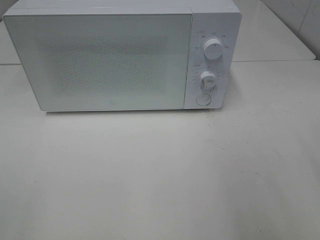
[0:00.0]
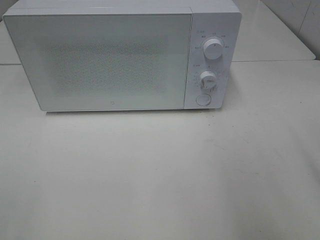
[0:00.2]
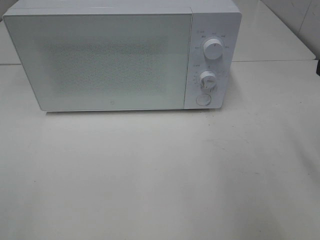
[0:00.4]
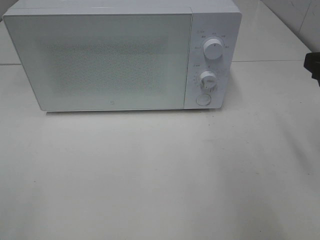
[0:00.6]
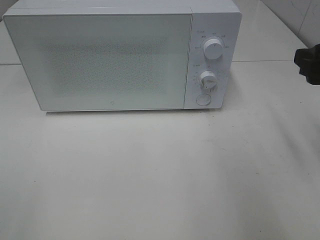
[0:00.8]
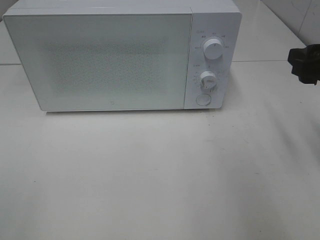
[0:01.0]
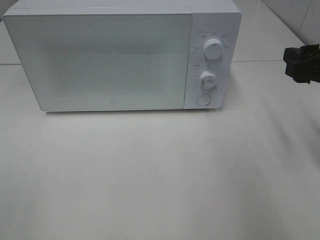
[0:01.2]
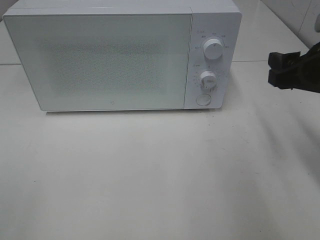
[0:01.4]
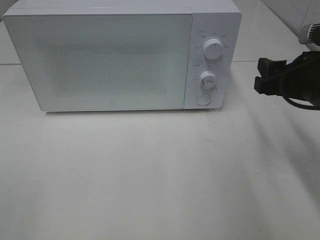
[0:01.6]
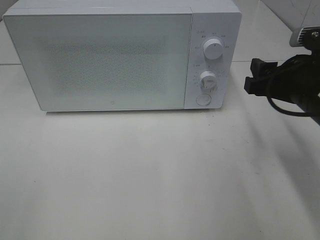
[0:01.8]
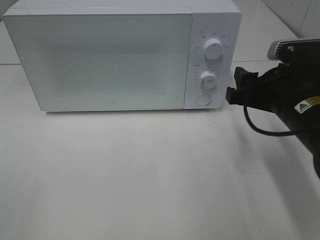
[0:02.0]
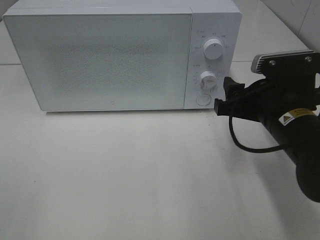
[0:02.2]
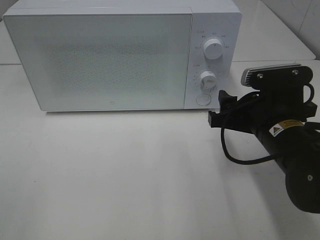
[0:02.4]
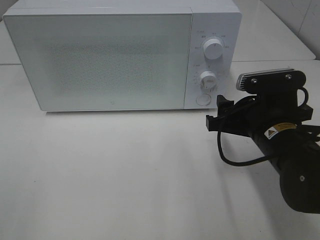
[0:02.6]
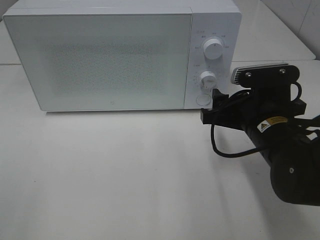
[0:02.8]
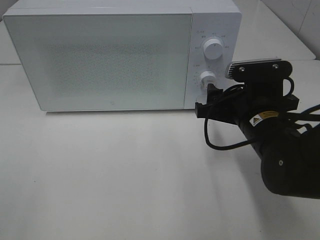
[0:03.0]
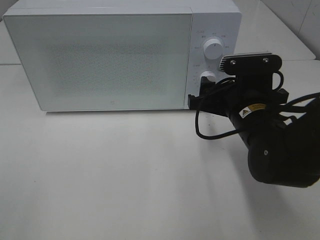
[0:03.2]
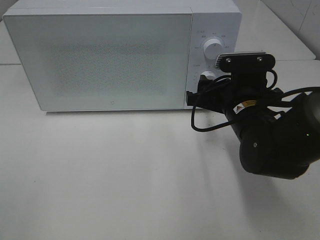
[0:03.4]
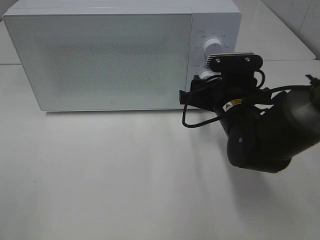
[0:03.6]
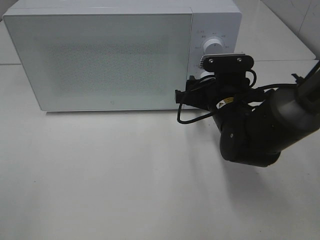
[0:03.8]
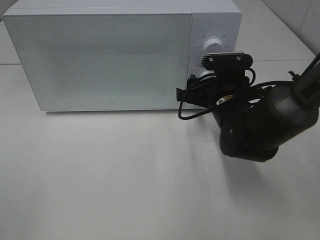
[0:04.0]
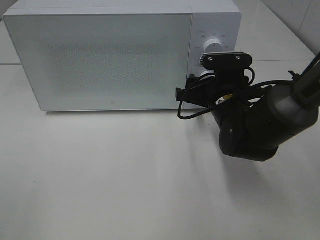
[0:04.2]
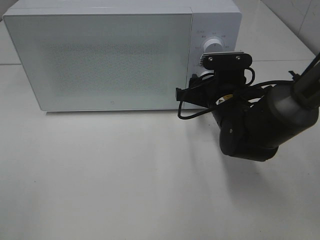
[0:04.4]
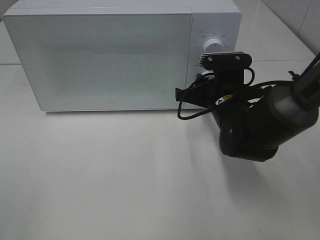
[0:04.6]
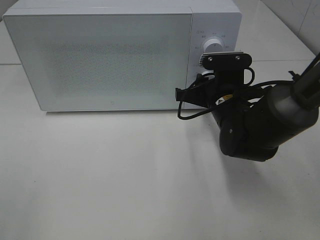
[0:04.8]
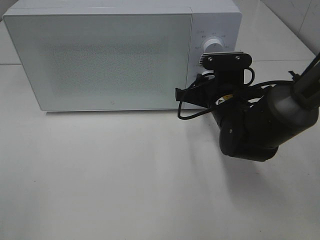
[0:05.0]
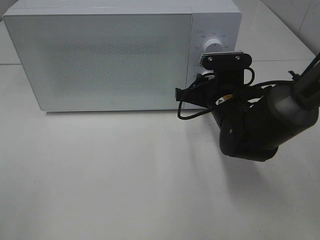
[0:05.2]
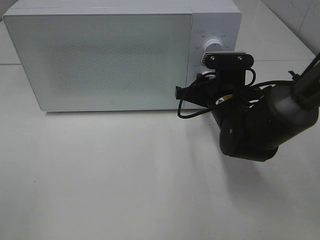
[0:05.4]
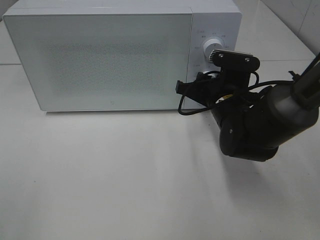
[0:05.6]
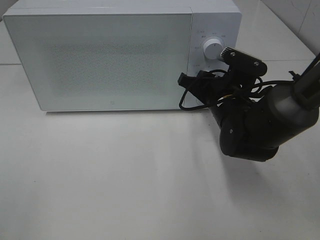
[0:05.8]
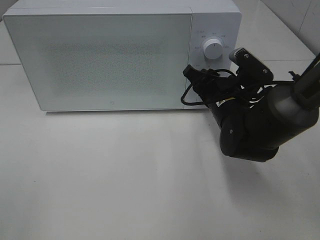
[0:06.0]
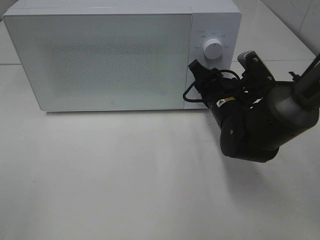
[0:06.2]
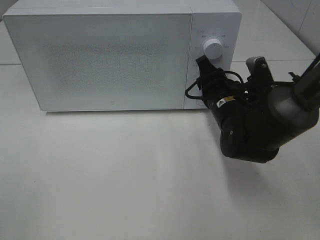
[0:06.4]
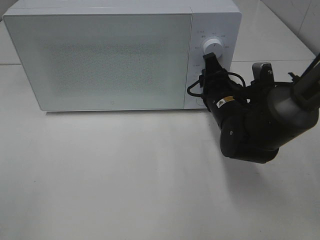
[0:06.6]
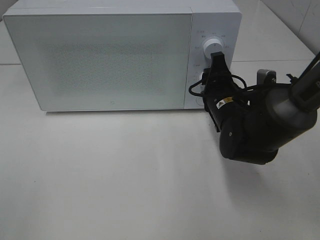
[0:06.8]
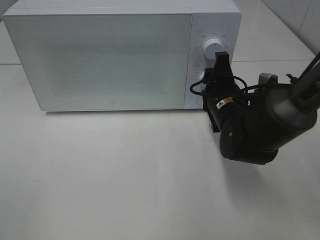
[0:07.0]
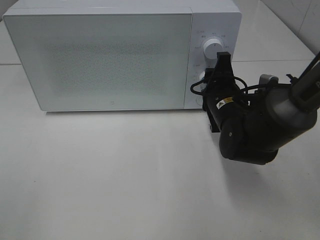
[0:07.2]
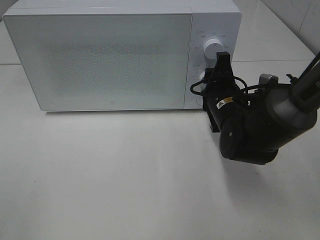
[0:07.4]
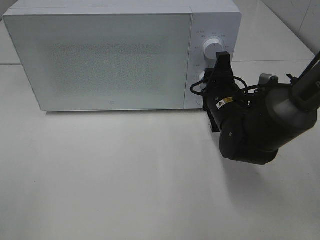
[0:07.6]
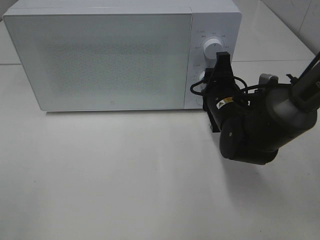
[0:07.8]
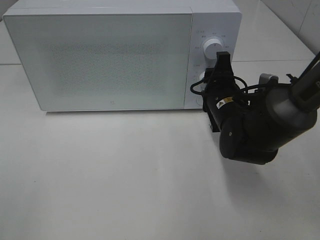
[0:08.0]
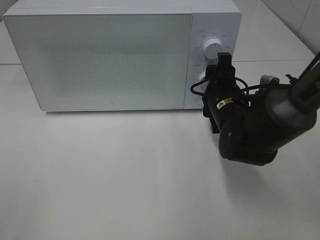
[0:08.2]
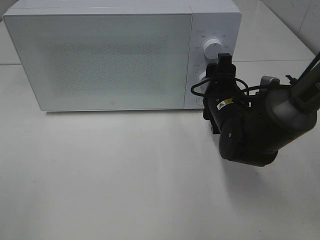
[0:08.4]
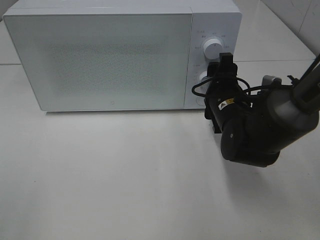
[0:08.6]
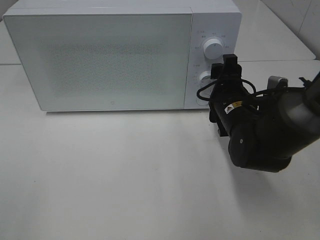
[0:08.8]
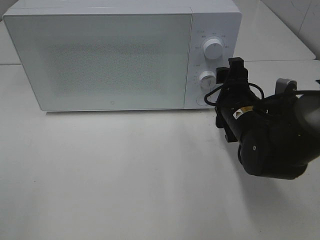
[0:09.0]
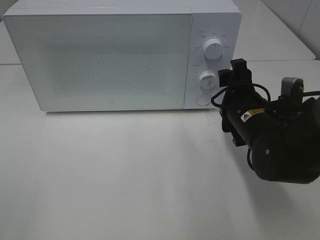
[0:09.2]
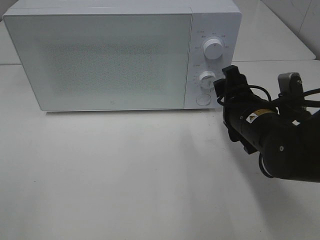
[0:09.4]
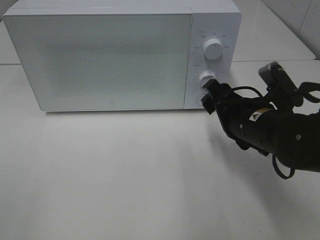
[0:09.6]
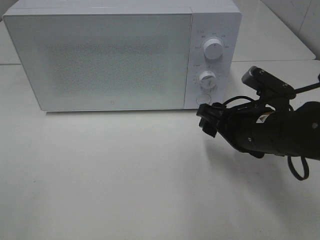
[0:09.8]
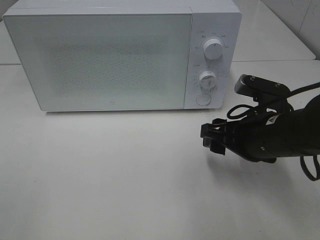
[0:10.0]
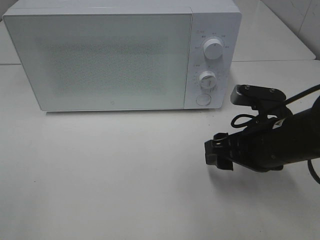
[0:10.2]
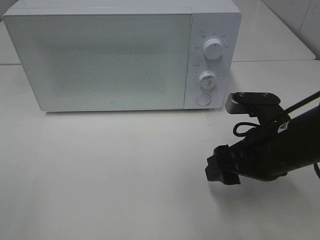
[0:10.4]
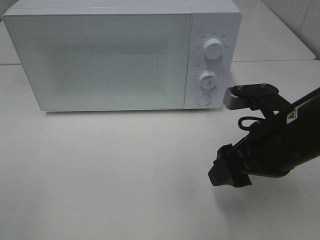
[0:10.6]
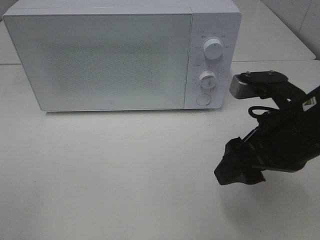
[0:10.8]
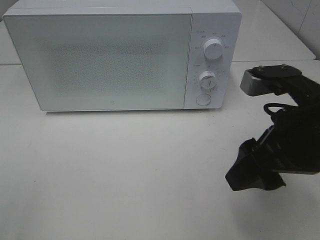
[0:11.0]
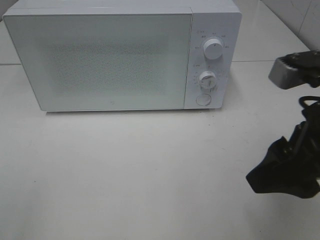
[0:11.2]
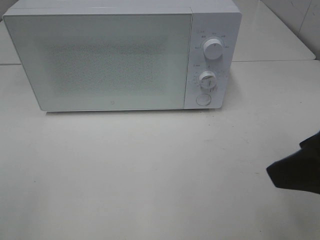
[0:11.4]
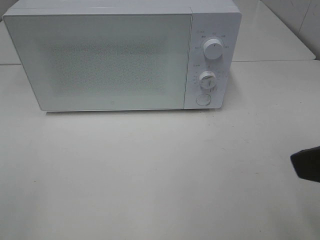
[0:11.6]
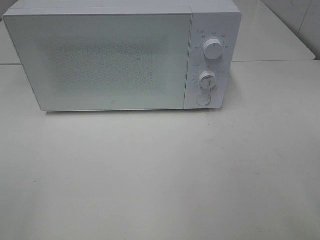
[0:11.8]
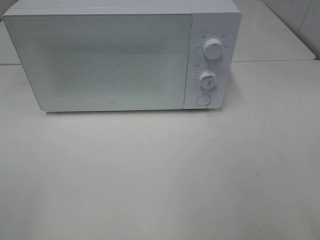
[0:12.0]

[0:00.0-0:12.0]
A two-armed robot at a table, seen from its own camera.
Task of the whole recording: Heat Sandwich.
Step, 0:00.0 to 0:08.4: Right hand: twist timer button.
0:00.0 to 0:01.6: The right gripper travels forward and downward by roughly 15 cm.
0:01.6 to 0:03.0: The right gripper moves to the left and downward, roughly 10 cm.
0:03.0 to 0:04.4: The right gripper shifts some 5 cm forward.
0:07.6 to 0:09.0: The right gripper opens.
0:09.0 to 0:10.4: The right gripper shifts approximately 10 cm backward.
0:10.4 to 0:12.0: The right gripper is displaced upward, backward and to the right by some 25 cm.

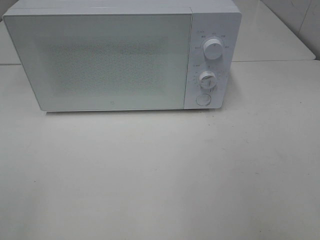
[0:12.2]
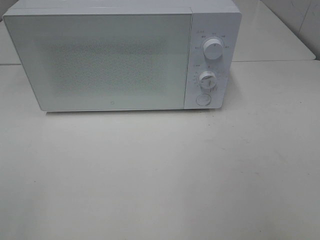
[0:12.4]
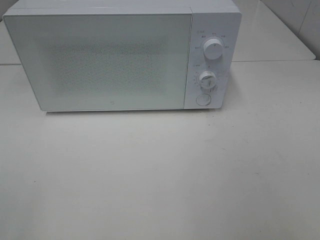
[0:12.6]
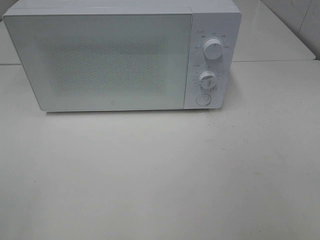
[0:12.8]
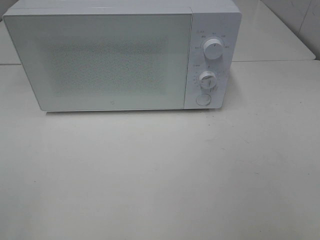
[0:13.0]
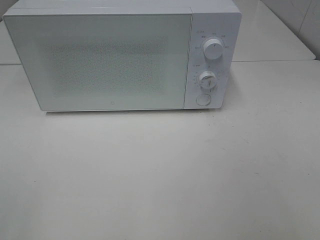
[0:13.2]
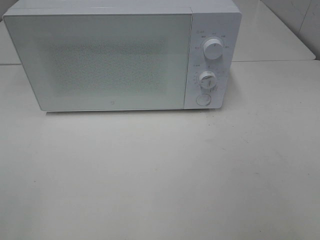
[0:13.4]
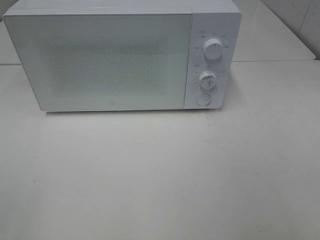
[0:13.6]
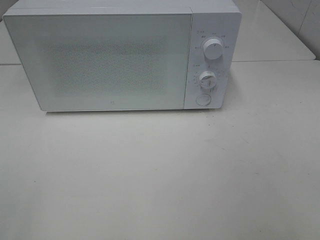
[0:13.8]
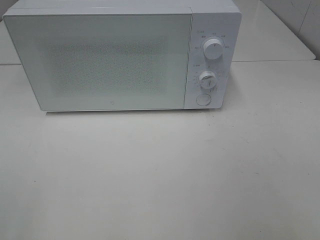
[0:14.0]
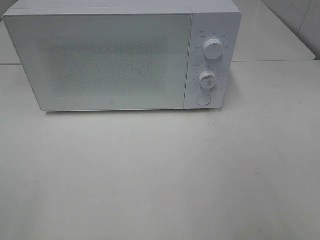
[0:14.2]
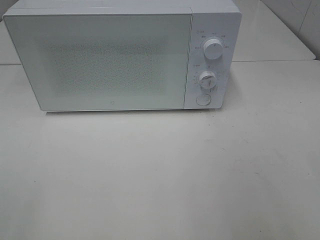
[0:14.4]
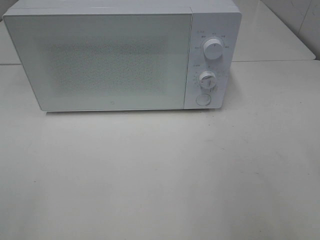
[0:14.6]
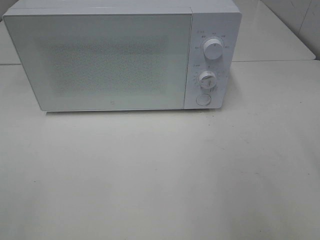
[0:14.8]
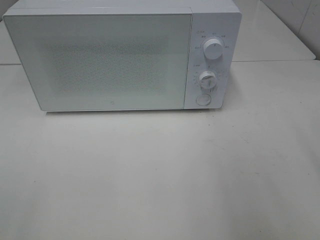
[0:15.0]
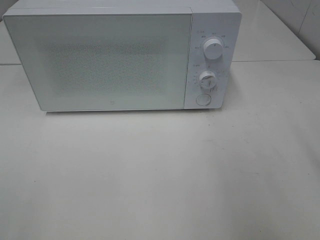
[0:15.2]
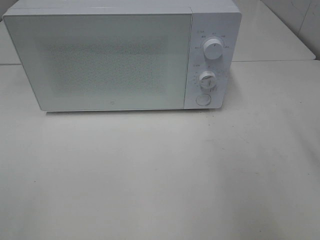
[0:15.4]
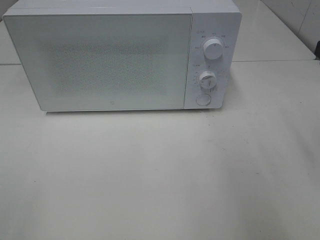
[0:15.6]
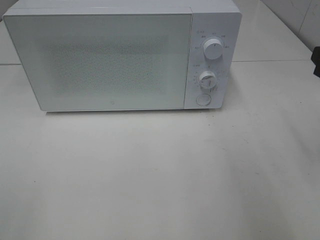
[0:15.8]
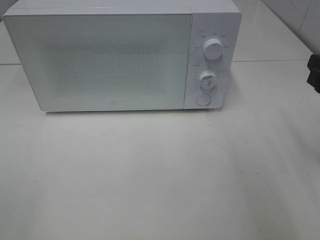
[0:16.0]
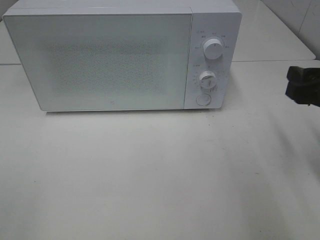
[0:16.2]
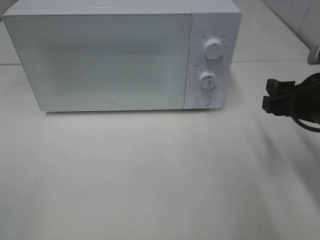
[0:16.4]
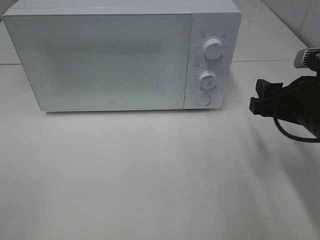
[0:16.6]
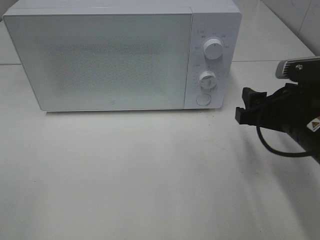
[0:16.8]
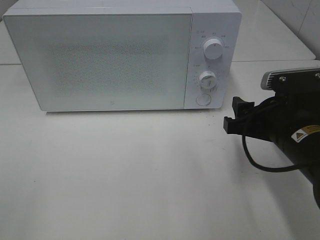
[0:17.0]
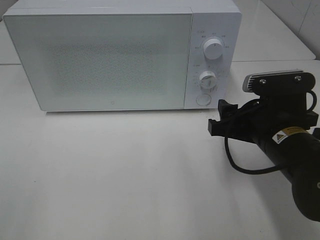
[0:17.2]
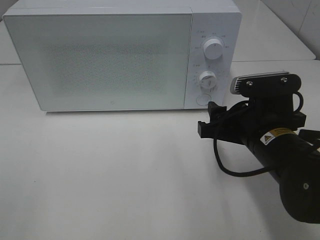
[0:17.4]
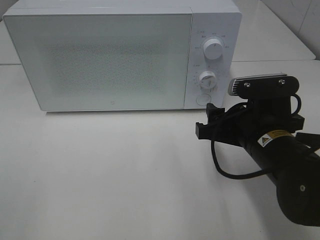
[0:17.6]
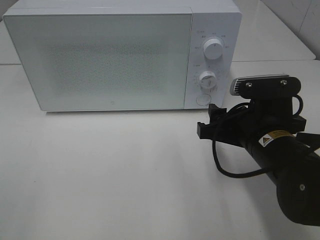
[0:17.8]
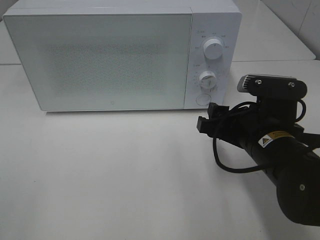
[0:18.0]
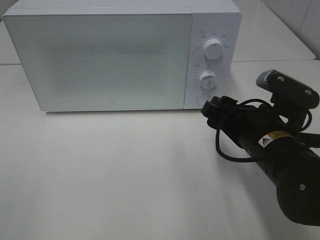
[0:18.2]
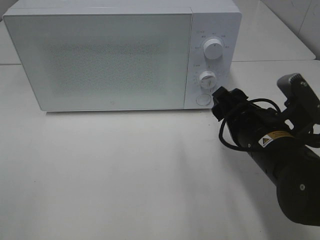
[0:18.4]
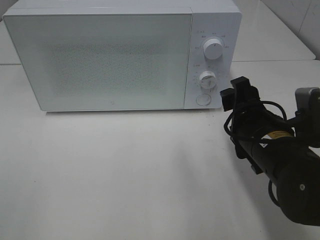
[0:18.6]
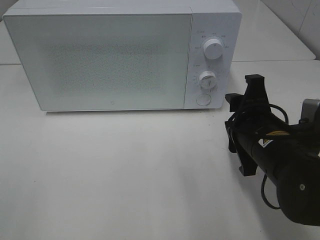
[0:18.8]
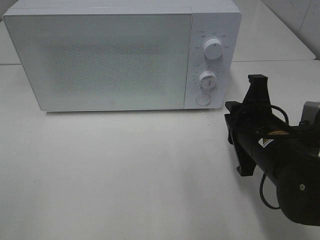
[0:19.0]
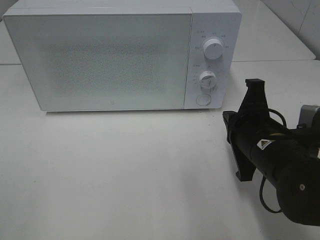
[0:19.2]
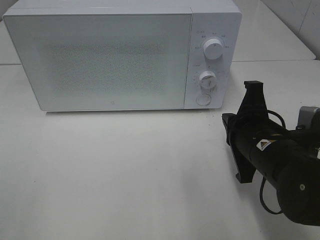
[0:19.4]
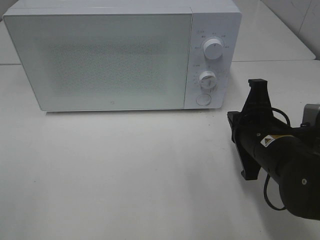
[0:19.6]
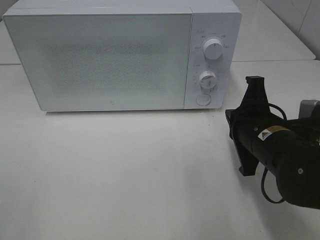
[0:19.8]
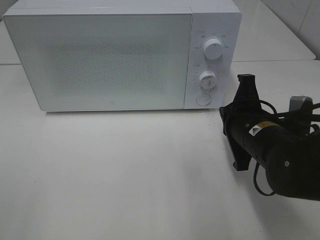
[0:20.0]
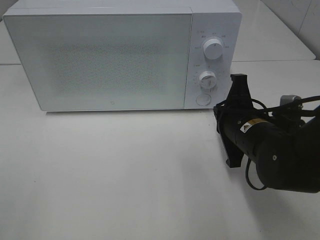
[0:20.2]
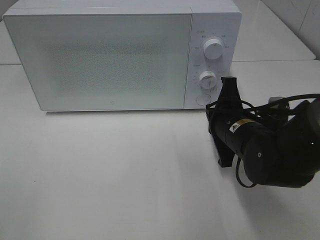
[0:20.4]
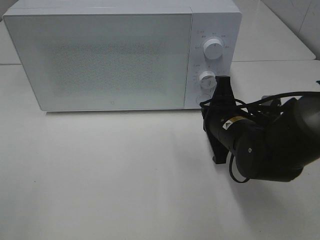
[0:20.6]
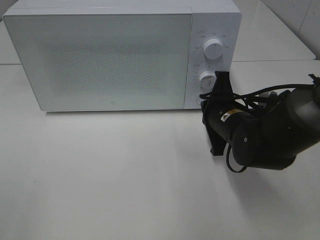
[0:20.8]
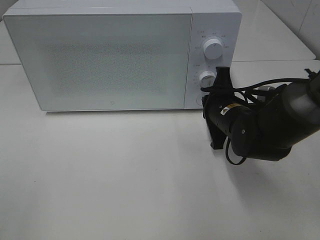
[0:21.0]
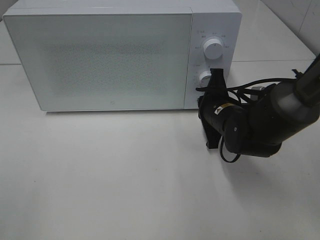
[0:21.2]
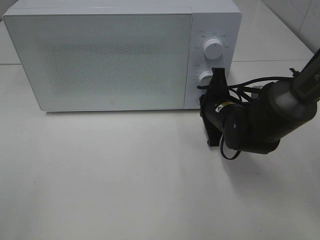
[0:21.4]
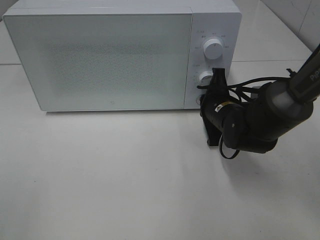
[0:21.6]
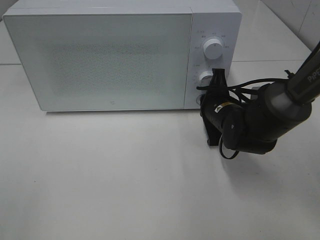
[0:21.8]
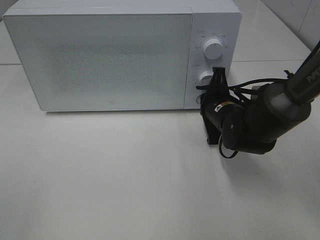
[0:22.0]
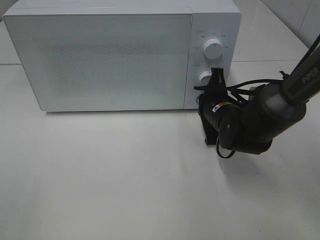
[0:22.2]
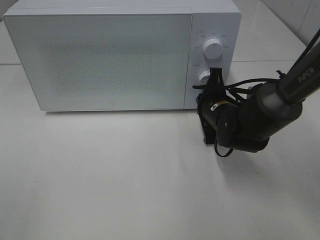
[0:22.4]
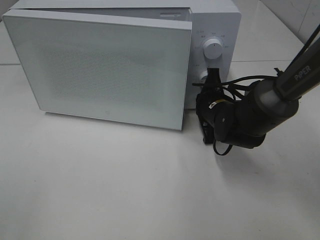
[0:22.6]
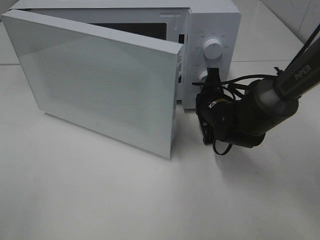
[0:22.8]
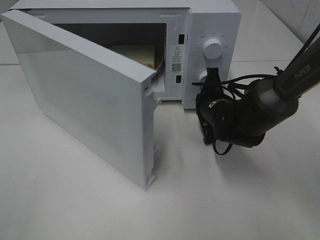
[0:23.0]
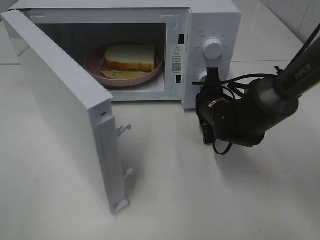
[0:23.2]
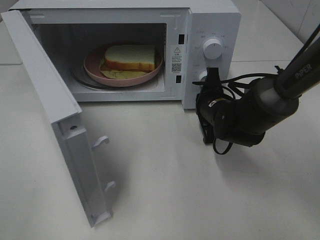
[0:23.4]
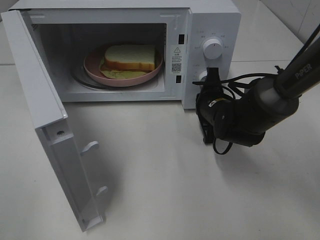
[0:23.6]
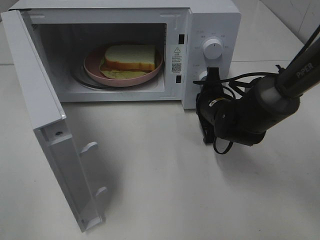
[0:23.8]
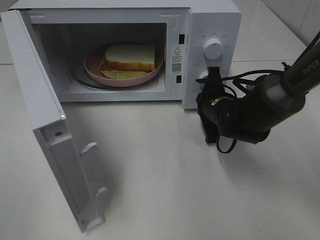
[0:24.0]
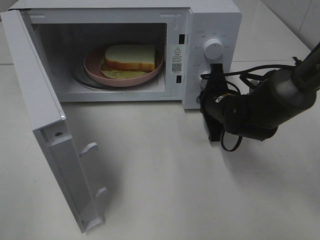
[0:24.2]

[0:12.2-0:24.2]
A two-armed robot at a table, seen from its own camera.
Task of the whole recording: Heat Sandwich.
0:15.2 to 0:16.6: The right gripper shifts roughly 15 cm downward, to the left and forward.
0:16.6 to 0:18.2: The right gripper shifts approximately 5 cm to the left.
0:18.2 to 0:19.8: The right gripper closes.
0:19.8 to 0:21.2: The right gripper is displaced forward by some 10 cm.
0:21.2 to 0:22.6: There are only small adjustments of the grippers.
